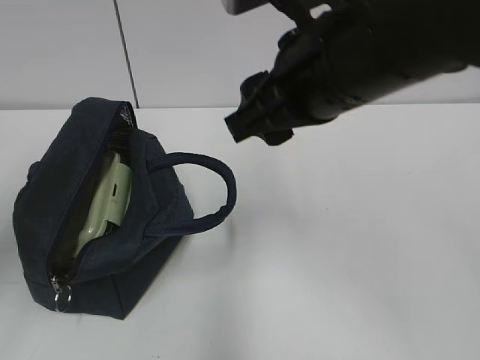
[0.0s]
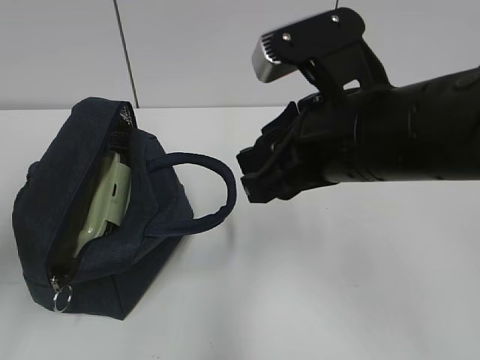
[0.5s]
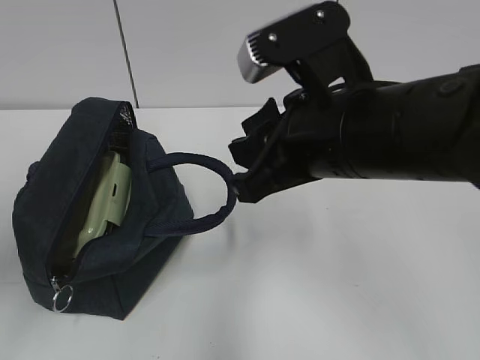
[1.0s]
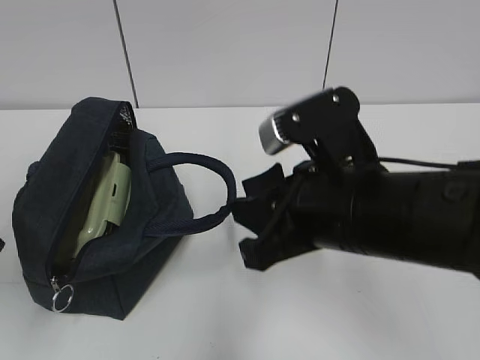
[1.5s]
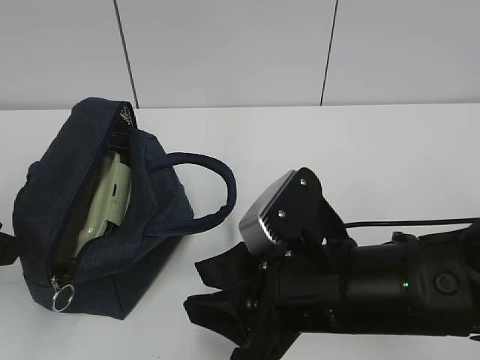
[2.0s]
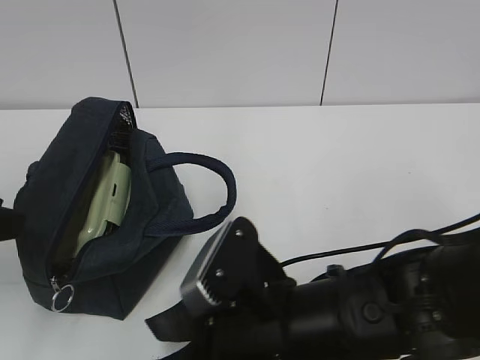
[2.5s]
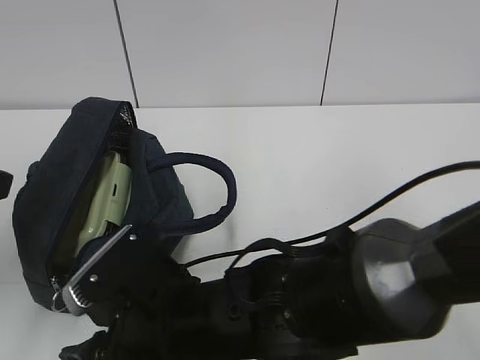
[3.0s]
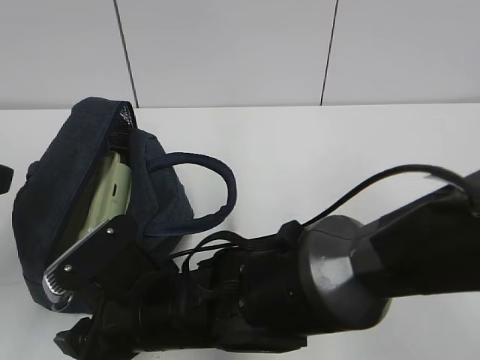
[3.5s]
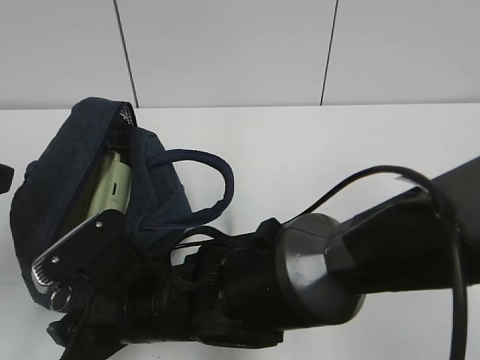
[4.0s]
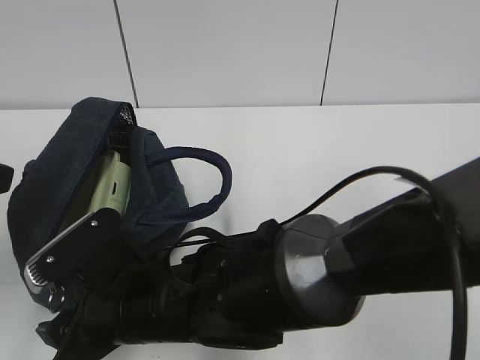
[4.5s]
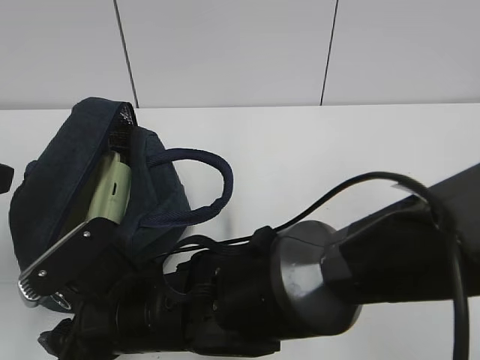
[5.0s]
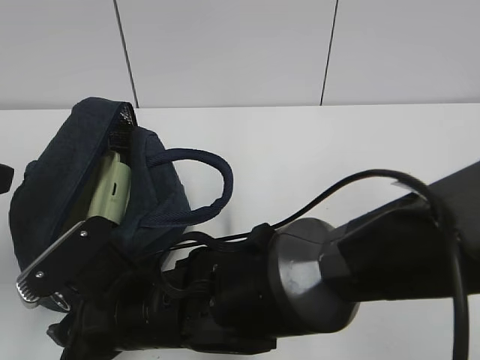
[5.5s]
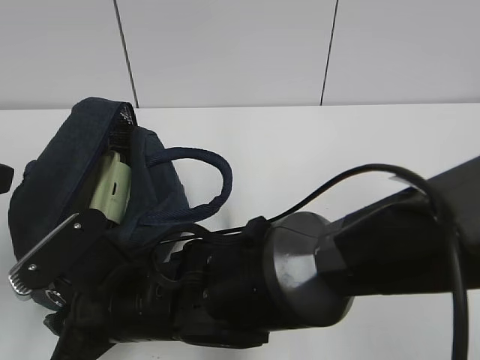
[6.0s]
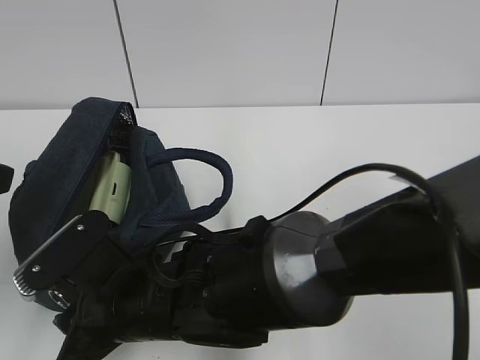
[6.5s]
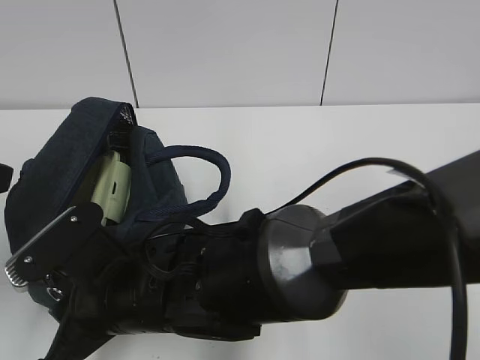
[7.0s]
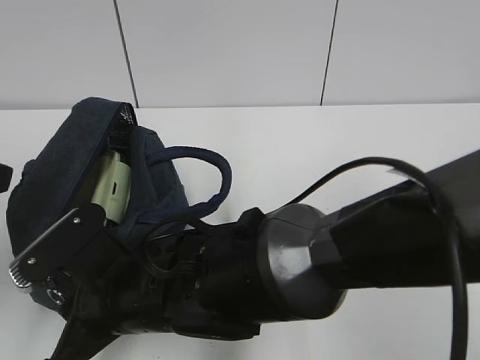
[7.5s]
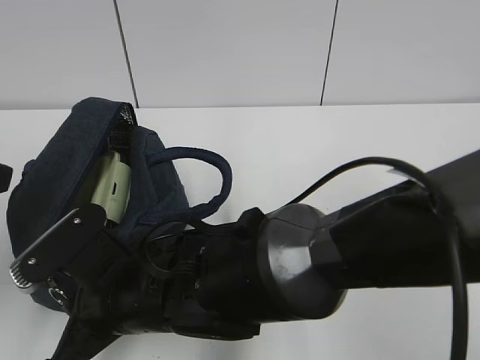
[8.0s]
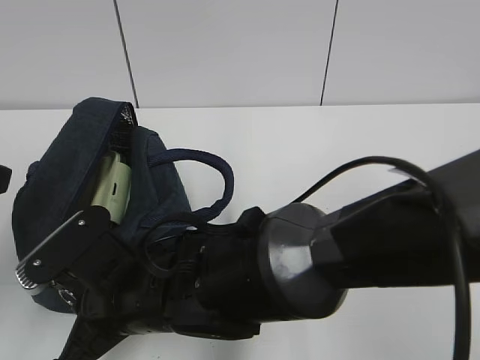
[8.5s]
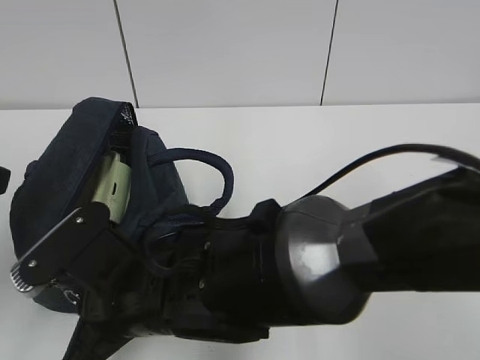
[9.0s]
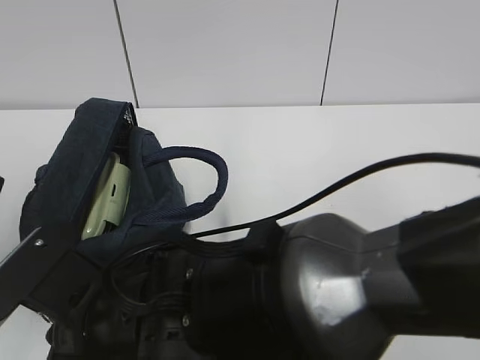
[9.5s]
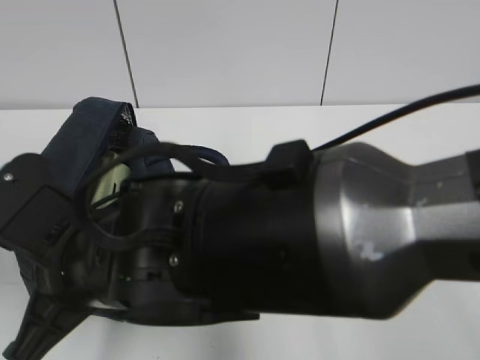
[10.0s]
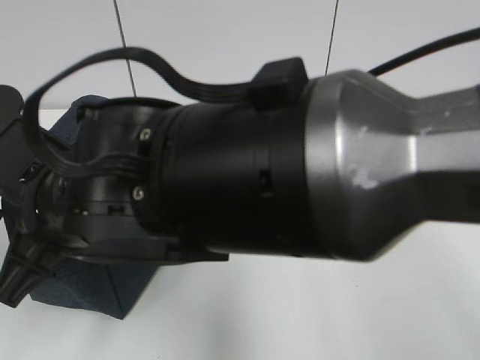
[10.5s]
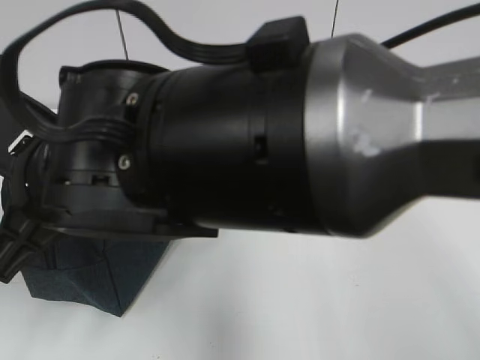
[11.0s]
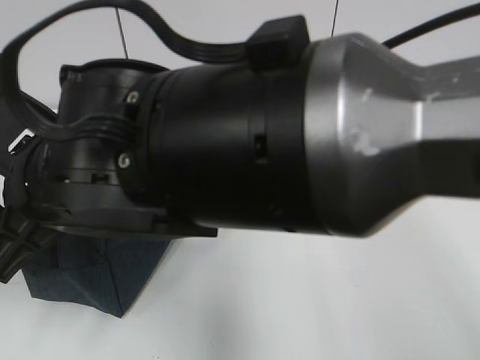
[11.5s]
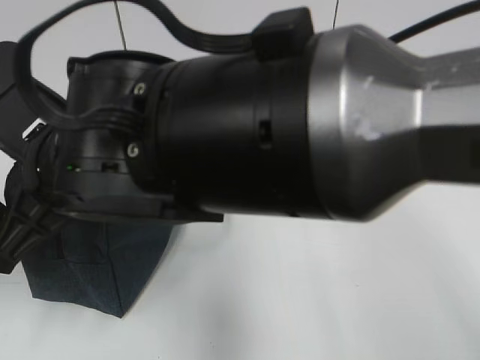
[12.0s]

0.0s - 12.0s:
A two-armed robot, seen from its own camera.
0.0s - 2.0s: The right gripper travels downward and backward by roughly 15 cm; the left gripper moves downward, roughly 5 cm.
2.0s - 4.0s: The right gripper moves to the left and downward, about 15 cm.
4.0s - 6.0s: There are only small adjustments of the grippers.
6.0s - 8.0s: The right gripper closes up.
8.0s - 10.0s: The right gripper moves upward, about 10 cm.
10.0s - 12.0s: The left gripper moves downward, approximately 5 cm, and closes its fingers. The right gripper is displaced upward by about 5 cm.

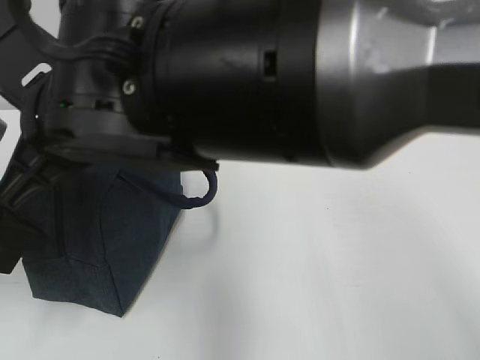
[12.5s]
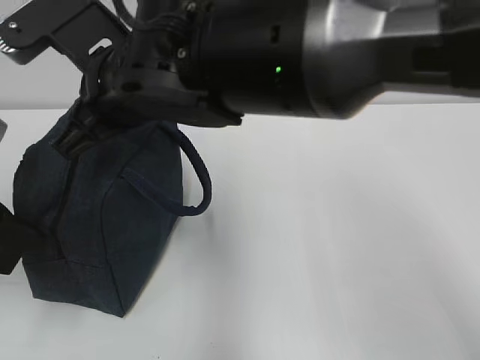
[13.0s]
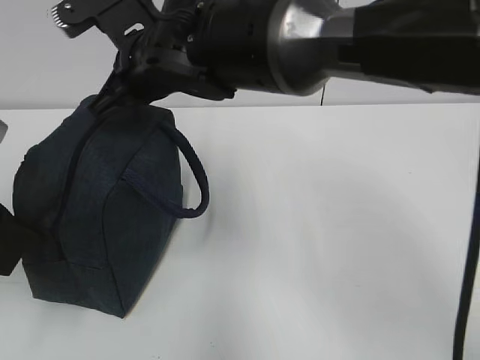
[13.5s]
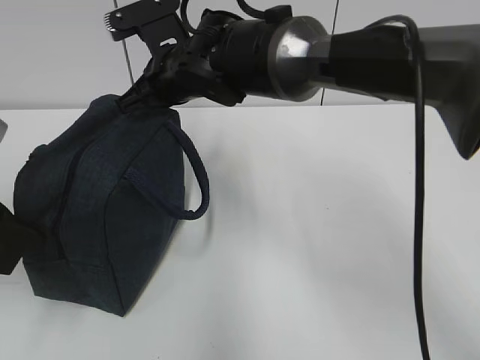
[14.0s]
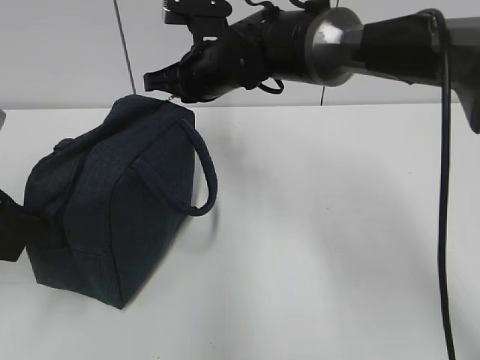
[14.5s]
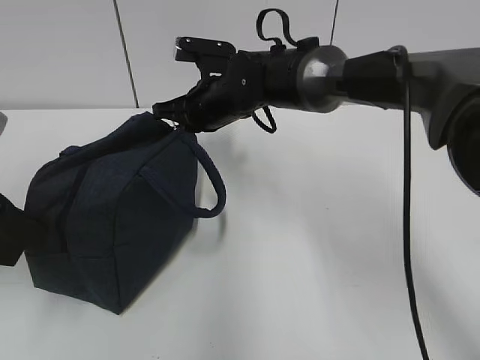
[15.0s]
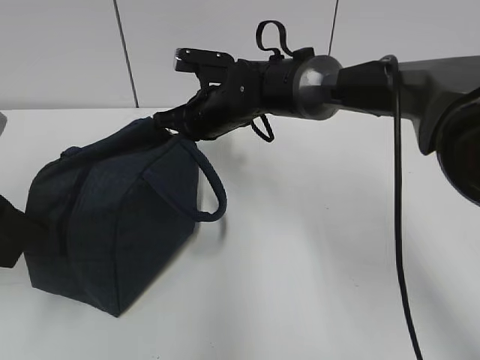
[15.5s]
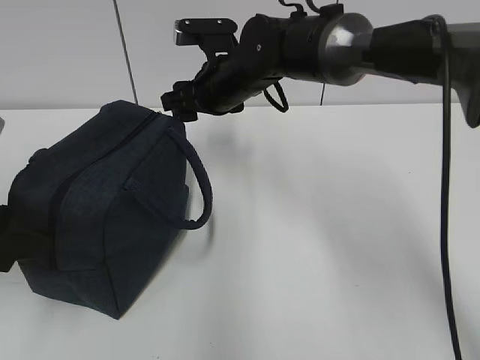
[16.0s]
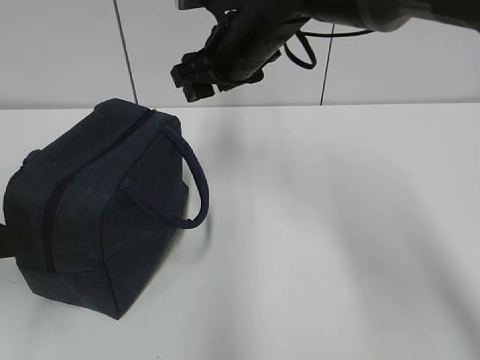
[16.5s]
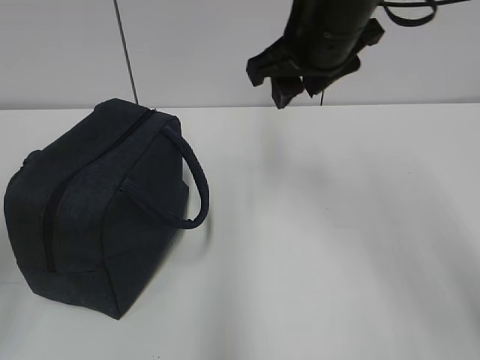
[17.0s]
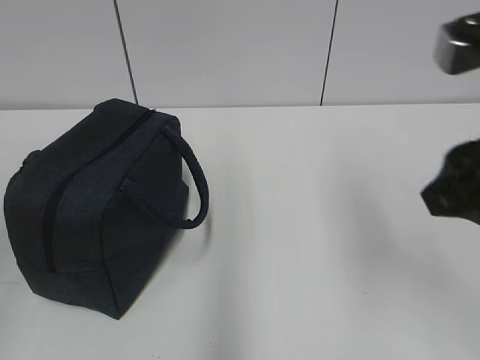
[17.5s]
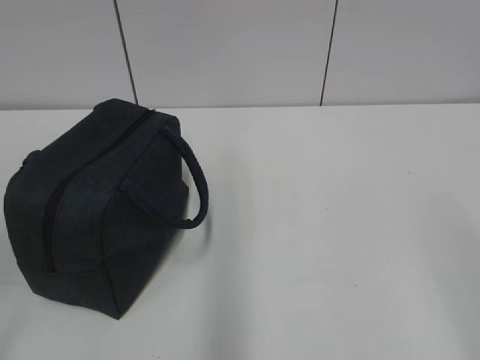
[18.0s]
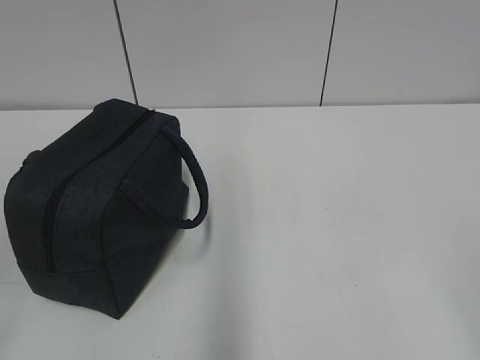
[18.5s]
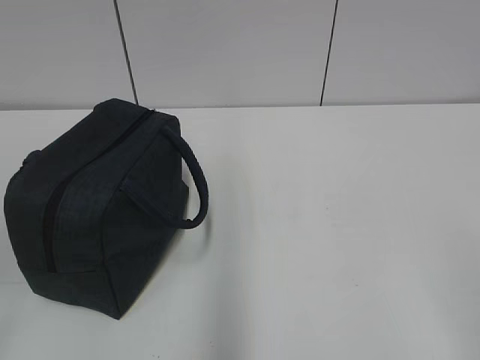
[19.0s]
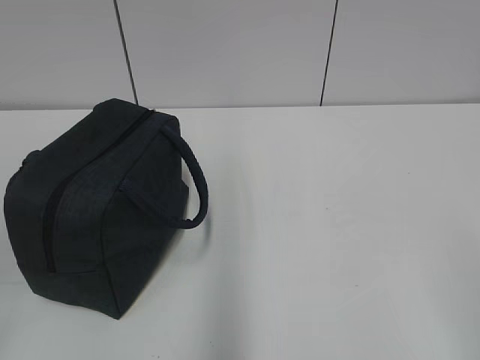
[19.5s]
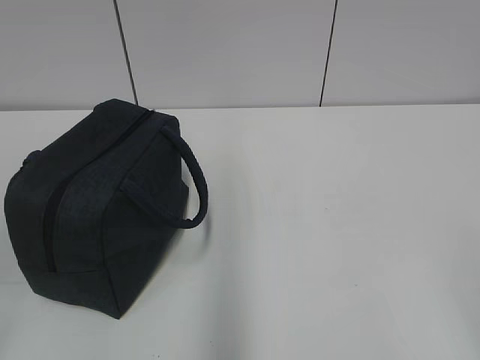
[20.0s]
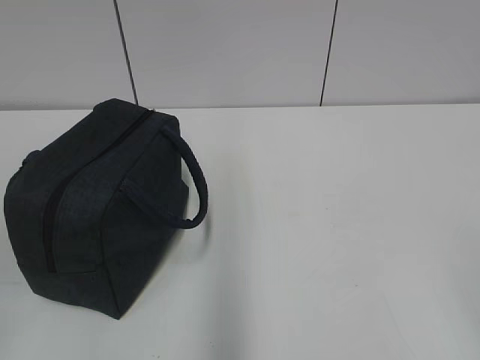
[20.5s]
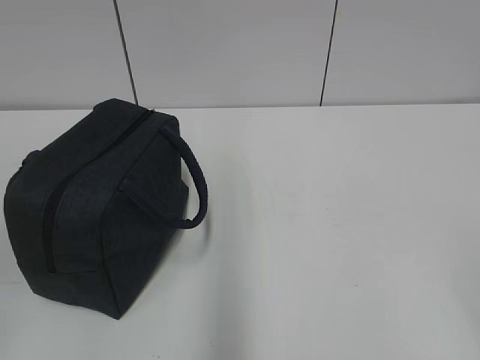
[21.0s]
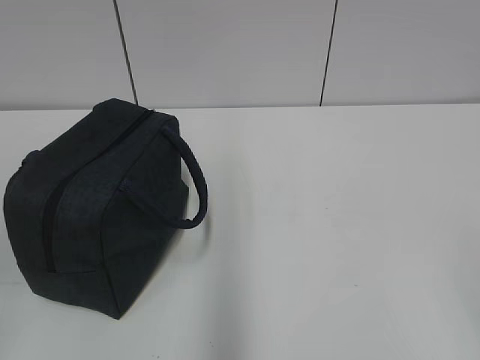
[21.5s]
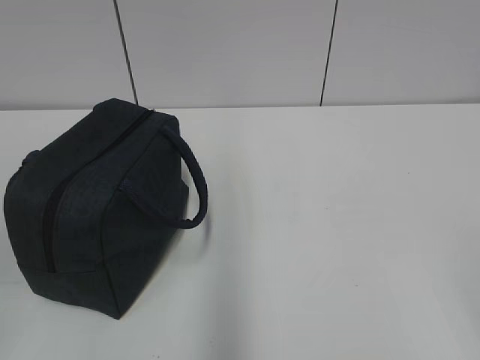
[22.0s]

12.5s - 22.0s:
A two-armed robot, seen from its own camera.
Step, 12.5s - 15.5s: Pull the zipper with your right hand.
12.5s - 14.5s: The right gripper travels forward and to the right by some 20 cm.
14.5s - 16.5s: The left gripper opens, while the right gripper changes place by roughly 5 cm, and opens up.
16.5s - 18.0s: The right gripper shifts about 50 cm backward and to the right. Meanwhile the left gripper travels backward by some 15 cm.

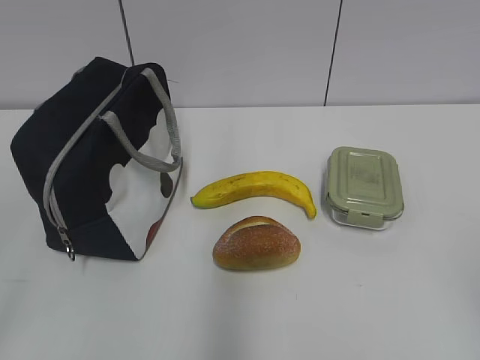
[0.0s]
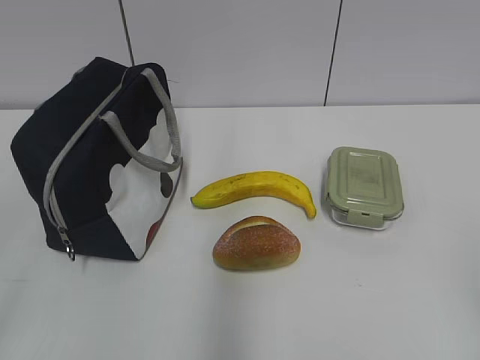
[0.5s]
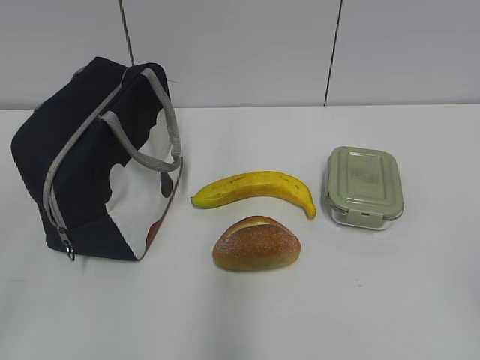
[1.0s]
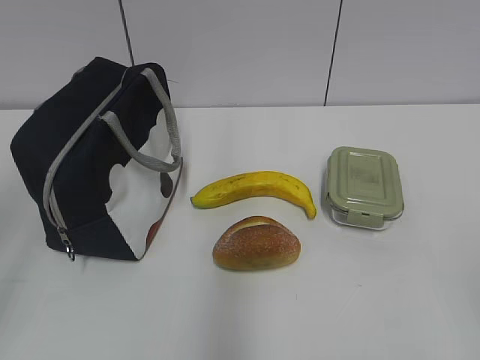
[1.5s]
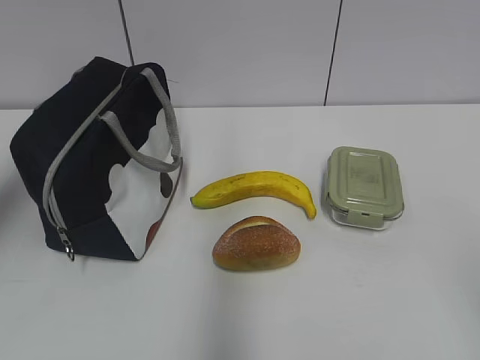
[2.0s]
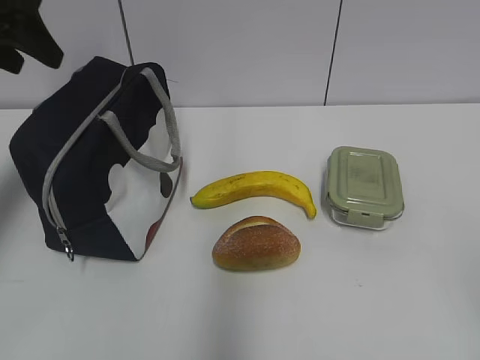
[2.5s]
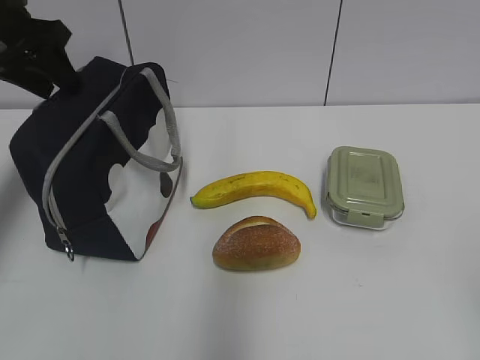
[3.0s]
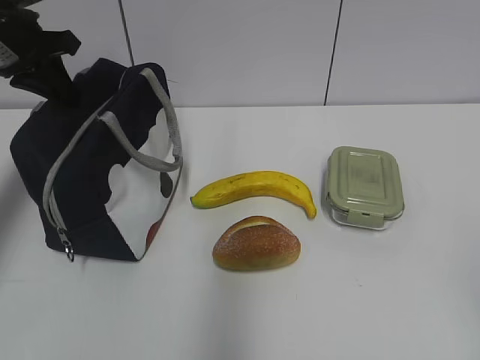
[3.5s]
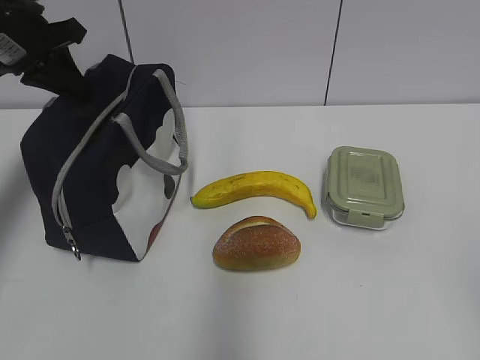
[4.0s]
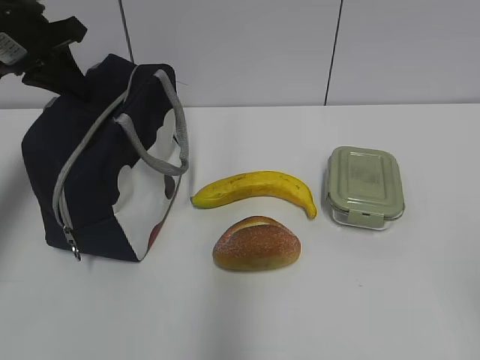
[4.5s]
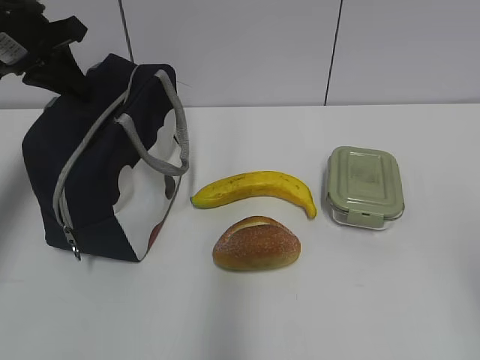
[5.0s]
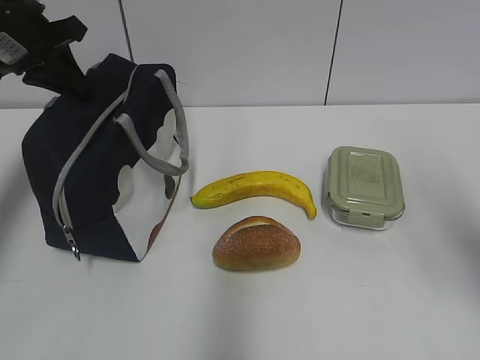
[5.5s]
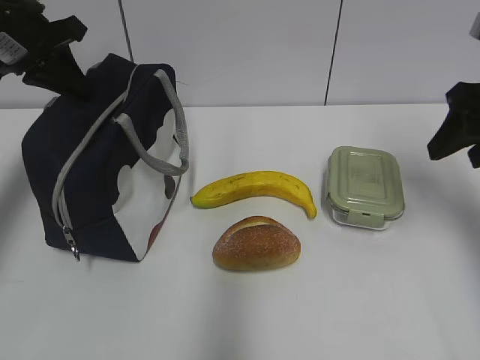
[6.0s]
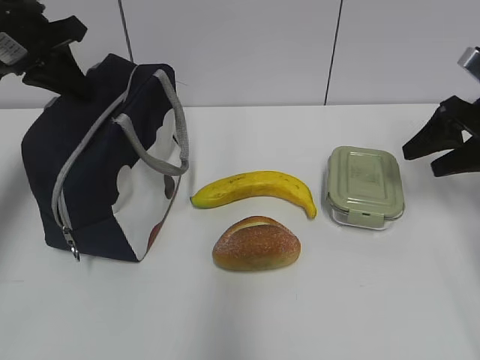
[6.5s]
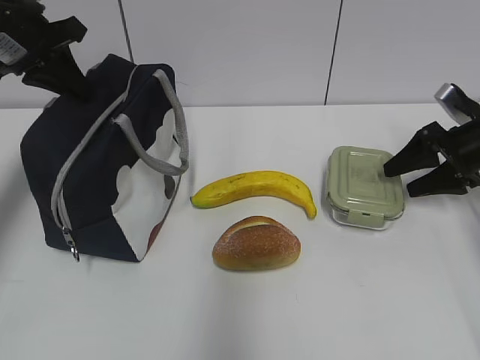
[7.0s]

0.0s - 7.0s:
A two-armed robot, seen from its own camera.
2.0s - 3.5s: The left gripper heads forward and downward, covering some 20 cm, and closes its fingers.
3.5s - 5.0s: The right gripper is displaced forward by about 5 cm.
5.0s - 7.0s: The right gripper goes roughly 40 cm forward and downward.
